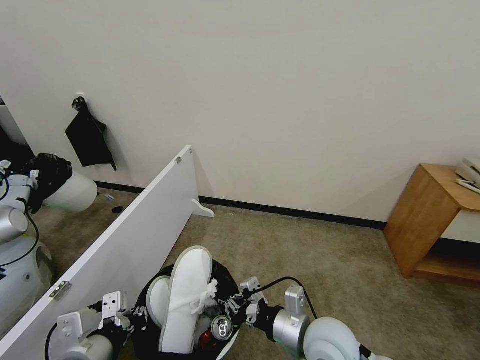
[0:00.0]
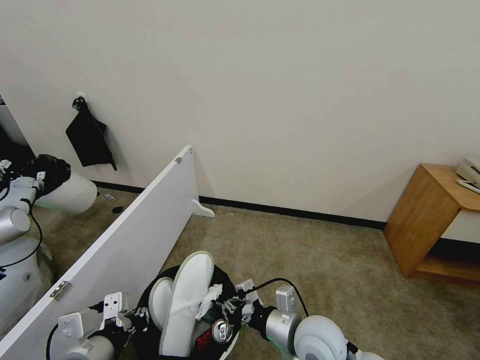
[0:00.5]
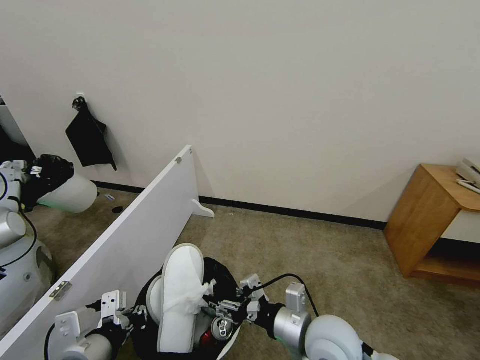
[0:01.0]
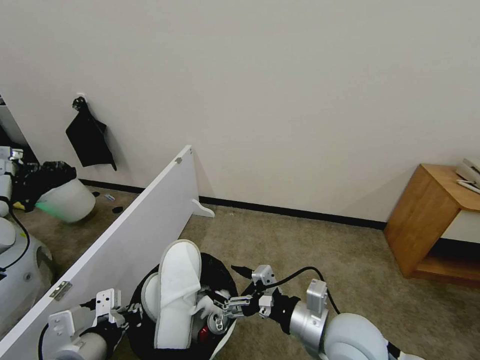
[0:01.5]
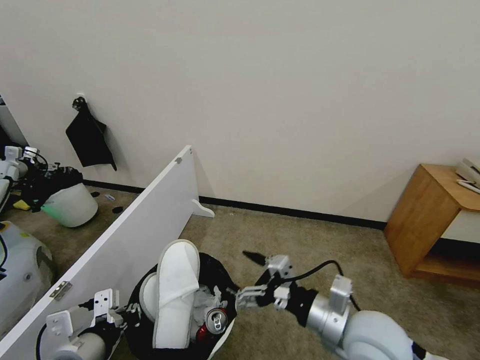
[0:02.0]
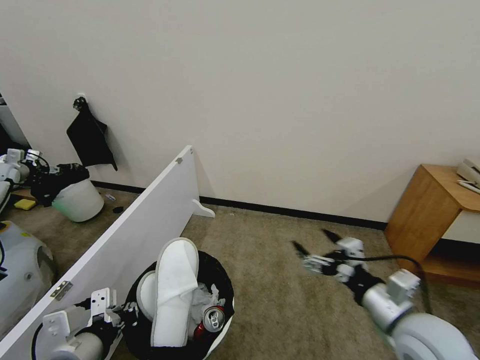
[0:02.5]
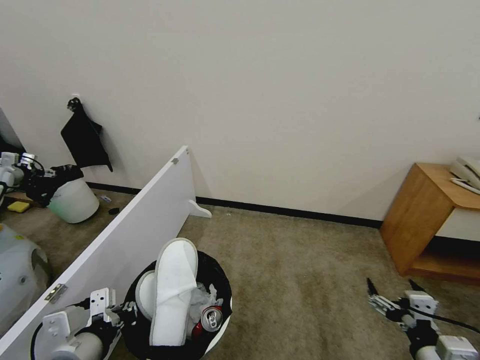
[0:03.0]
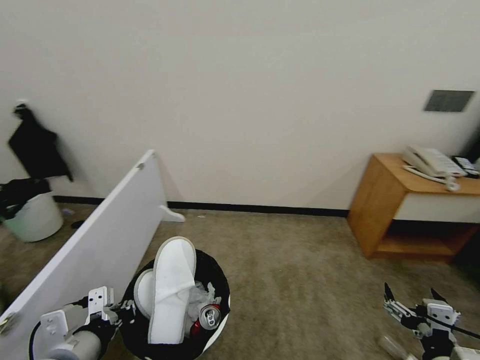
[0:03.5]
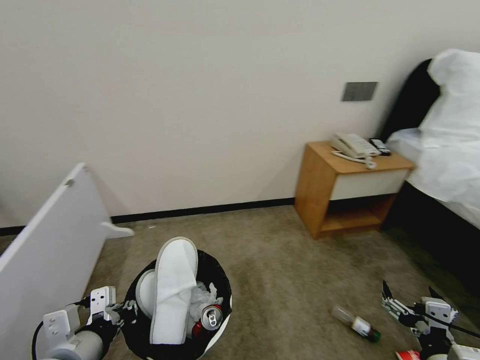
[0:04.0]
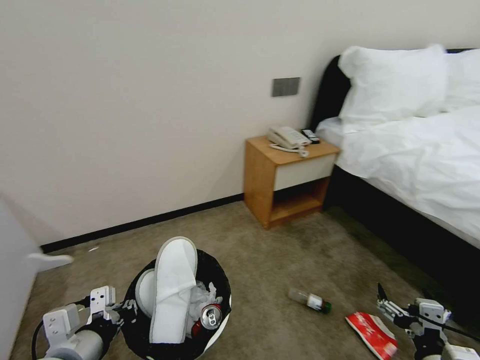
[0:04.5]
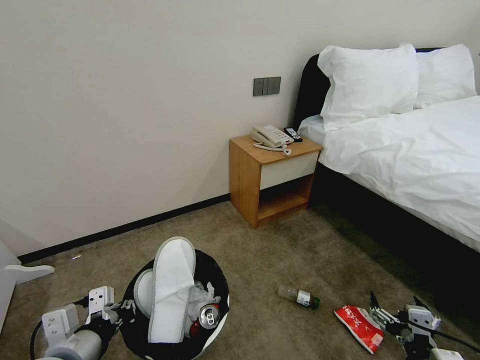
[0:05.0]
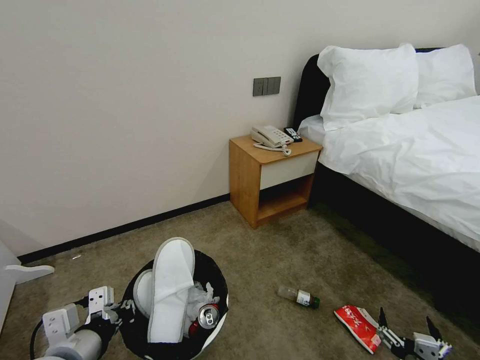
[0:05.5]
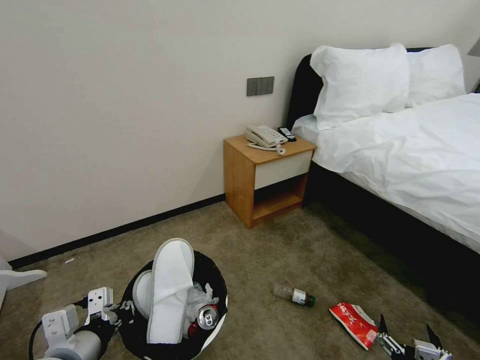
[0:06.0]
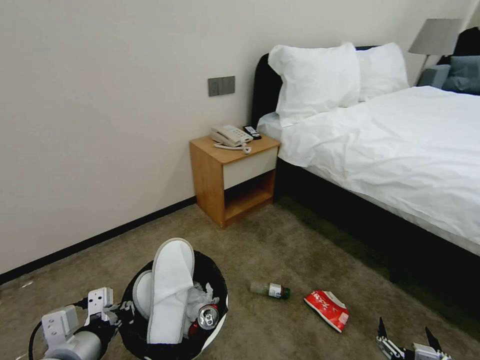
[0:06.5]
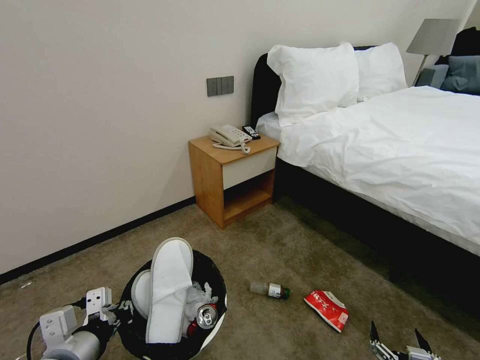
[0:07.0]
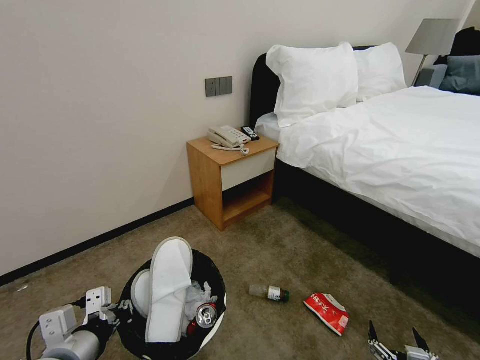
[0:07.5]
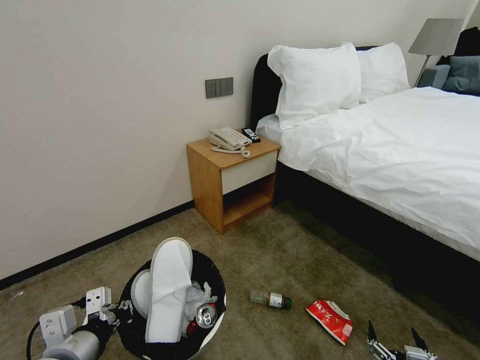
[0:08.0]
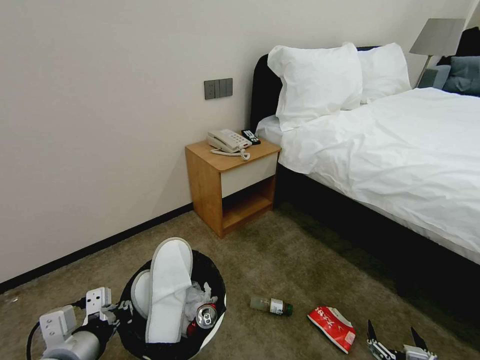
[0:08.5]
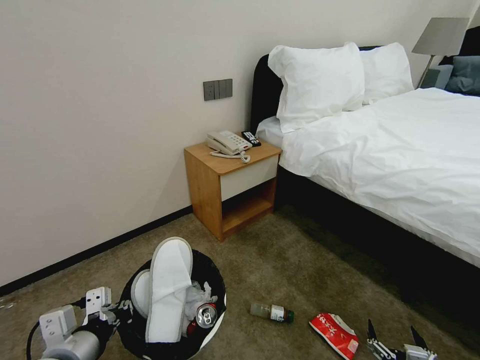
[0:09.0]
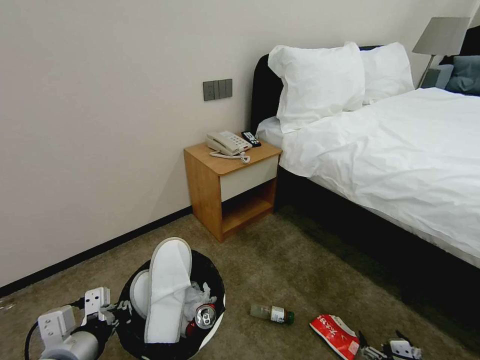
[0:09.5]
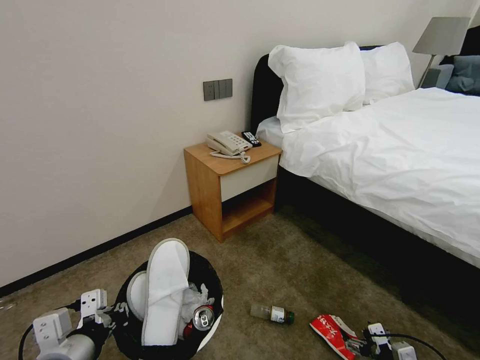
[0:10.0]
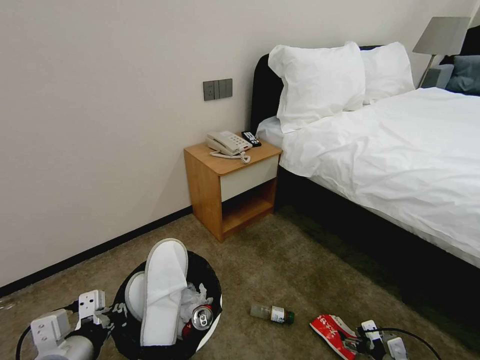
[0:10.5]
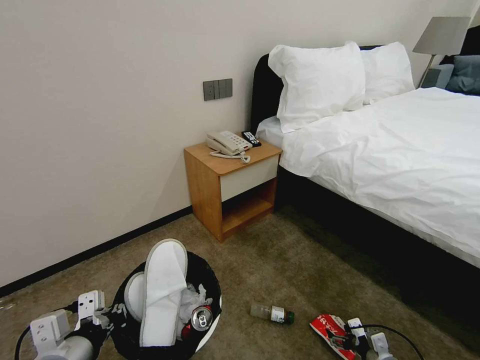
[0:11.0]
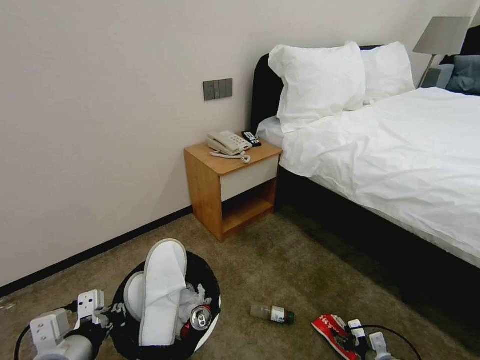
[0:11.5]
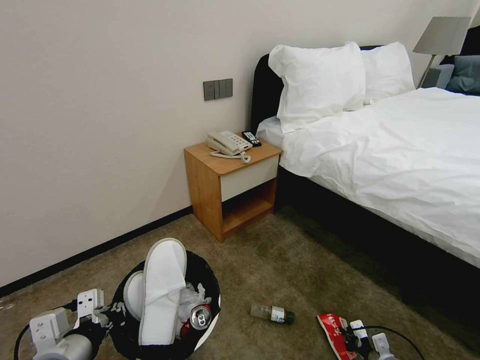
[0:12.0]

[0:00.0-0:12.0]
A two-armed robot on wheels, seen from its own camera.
Task of the whole recording: Pick up the trash bin, then pick up the garbage from the floor and place it into the trash bin.
0:00.0 to 0:02.0: The right gripper shifts approximately 5 cm upward, and opens.
0:02.0 to 0:04.0: The right gripper shifts some 20 cm to the right, backward and downward.
0:04.0 to 0:06.0: The right gripper heads downward, covering some 10 cm.
0:08.0 to 0:10.0: The right gripper shifts roughly 15 cm forward and to the right.
0:10.0 to 0:12.0: The right gripper is displaced downward and forward by some 10 cm, and closes its fingers.

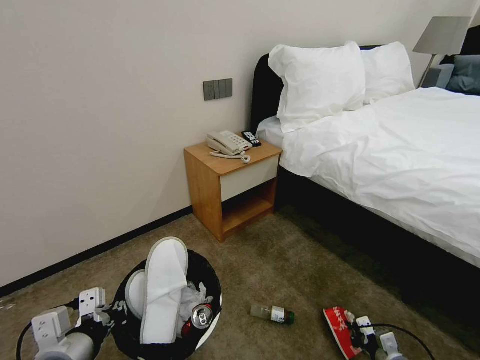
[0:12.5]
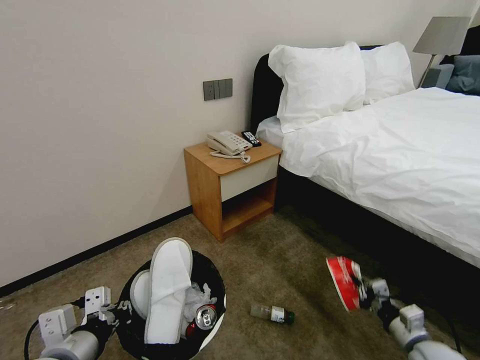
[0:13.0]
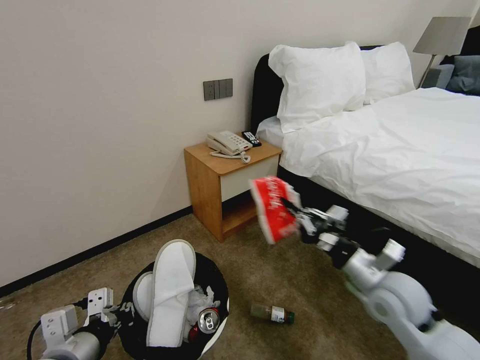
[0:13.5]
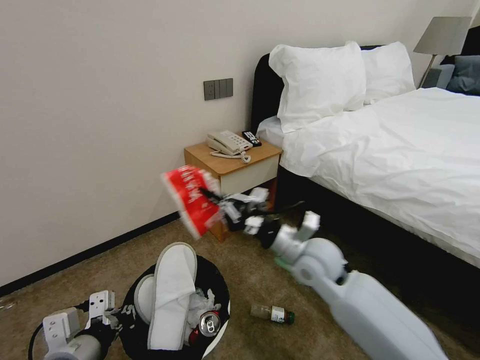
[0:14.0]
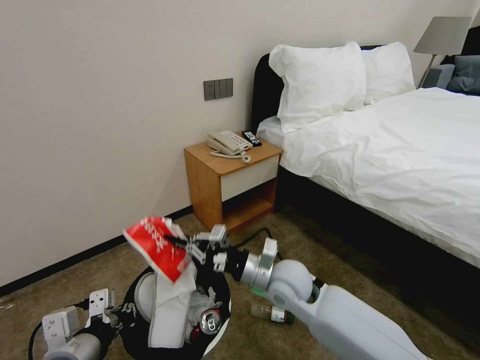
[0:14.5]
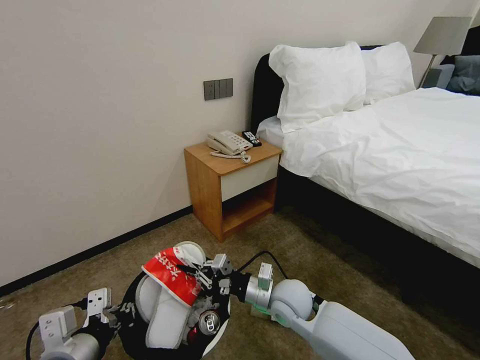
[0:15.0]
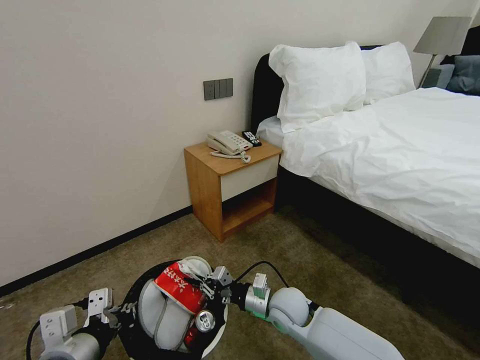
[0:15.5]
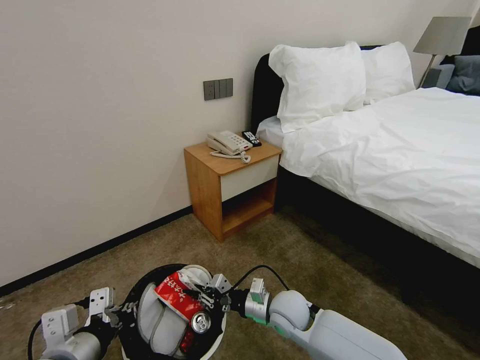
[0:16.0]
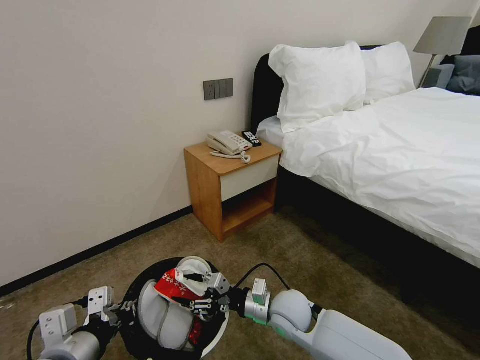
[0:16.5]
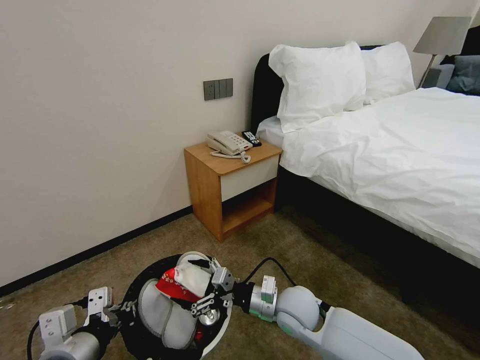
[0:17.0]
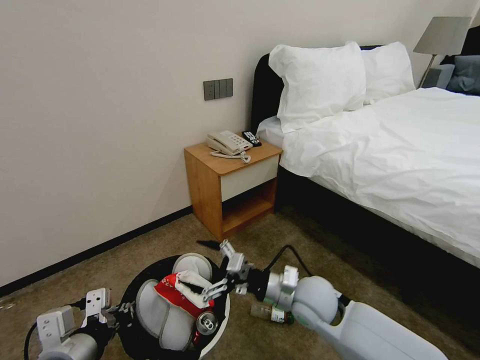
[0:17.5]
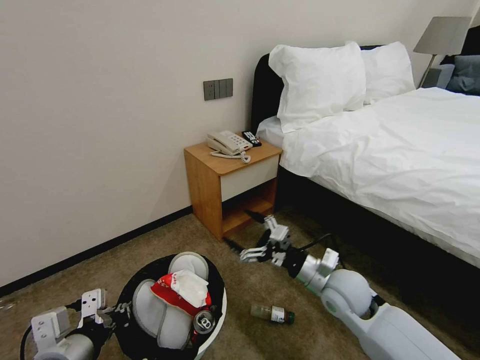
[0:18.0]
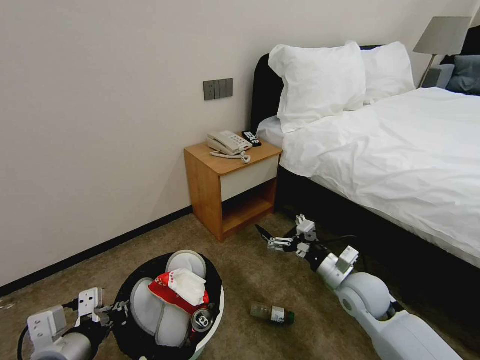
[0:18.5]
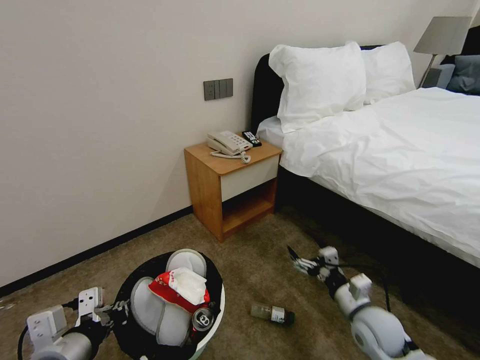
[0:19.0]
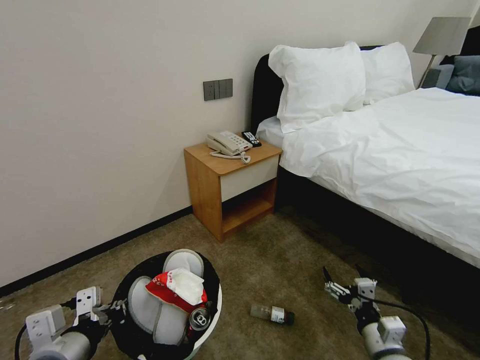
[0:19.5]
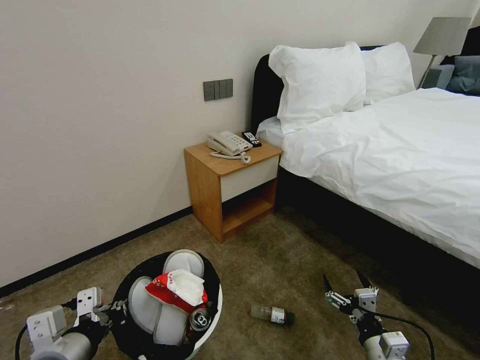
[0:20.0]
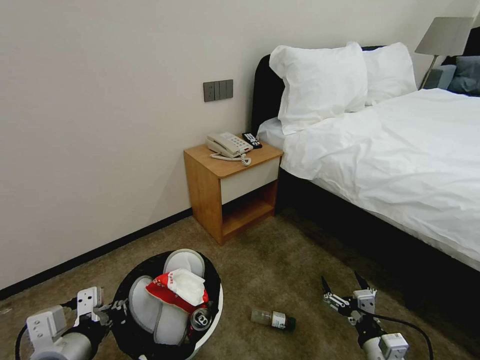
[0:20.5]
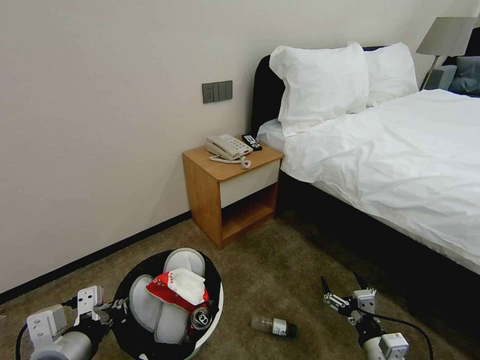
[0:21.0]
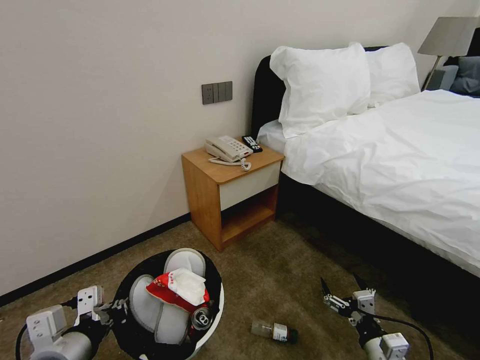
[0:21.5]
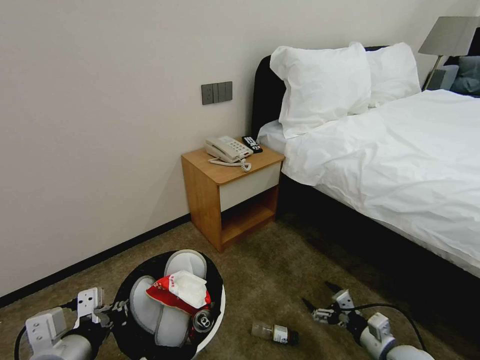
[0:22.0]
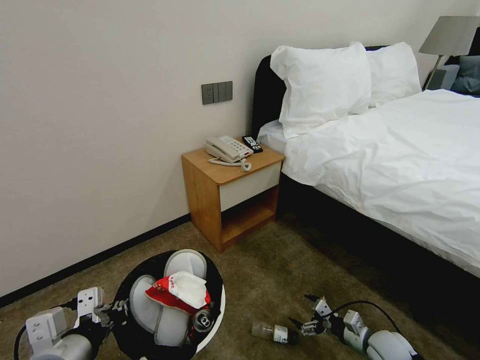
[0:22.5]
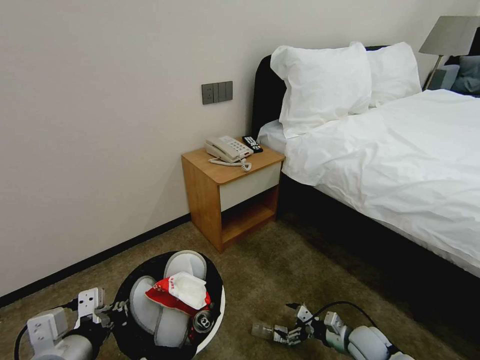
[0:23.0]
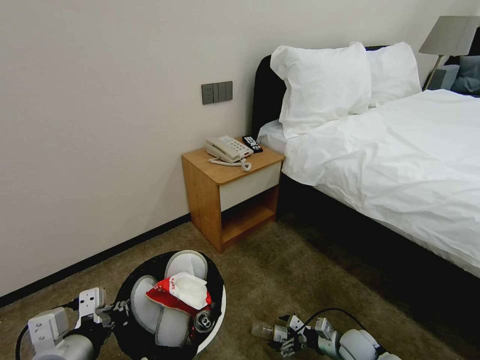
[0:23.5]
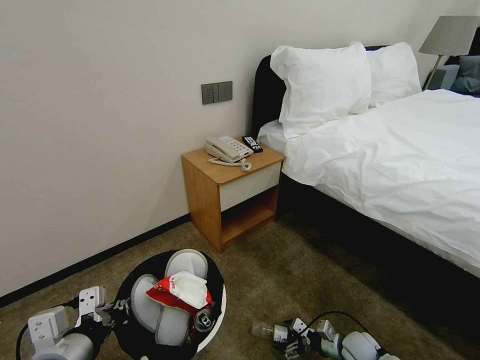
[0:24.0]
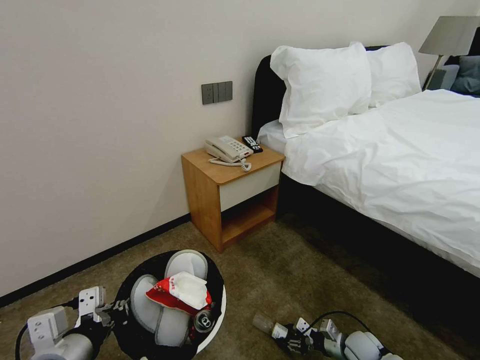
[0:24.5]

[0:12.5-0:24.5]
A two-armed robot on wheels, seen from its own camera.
Task of the whole recording: Pick up the trash bin, then pick up the garbage from the floor and place it into the trash bin.
0:12.5 to 0:14.5: The right gripper shifts roughly 40 cm to the left and upward.
0:14.5 to 0:16.5: The right gripper shifts approximately 10 cm downward, and opens.
0:16.5 to 0:18.5: The right gripper shifts approximately 15 cm to the right, and opens.
0:18.5 to 0:20.5: The right gripper goes approximately 20 cm backward and downward.
0:20.5 to 0:22.5: The right gripper shifts about 15 cm forward, downward and to the right.
0:22.5 to 0:24.5: The right gripper is displaced downward by some 5 cm, and closes.

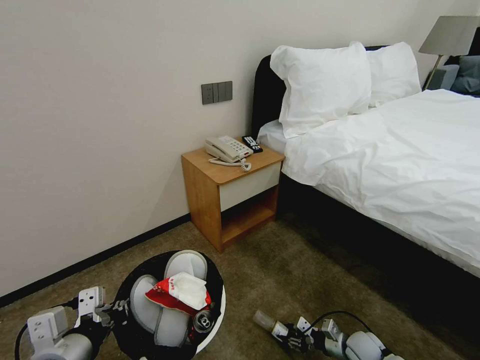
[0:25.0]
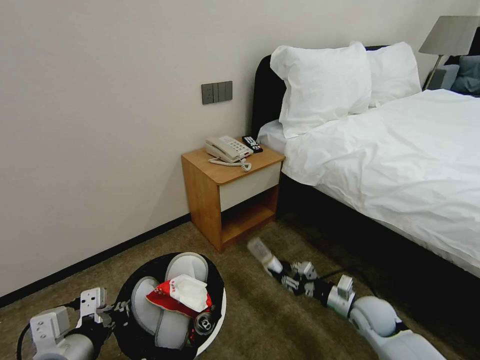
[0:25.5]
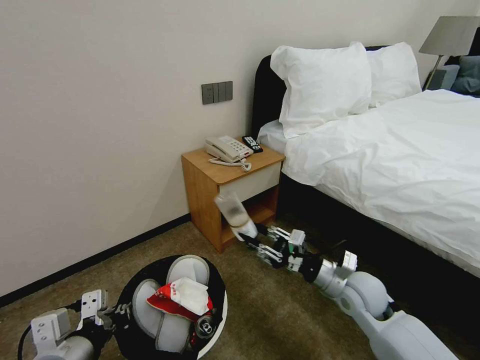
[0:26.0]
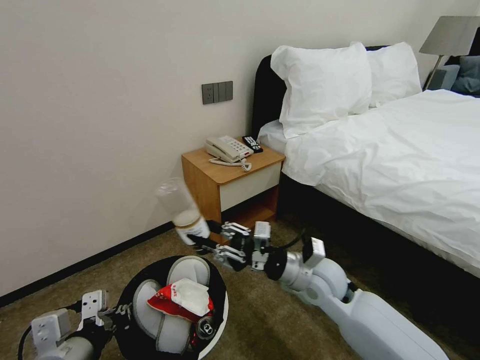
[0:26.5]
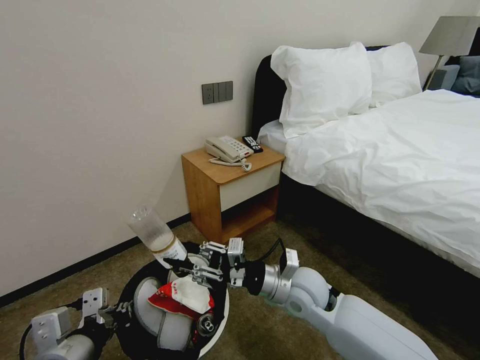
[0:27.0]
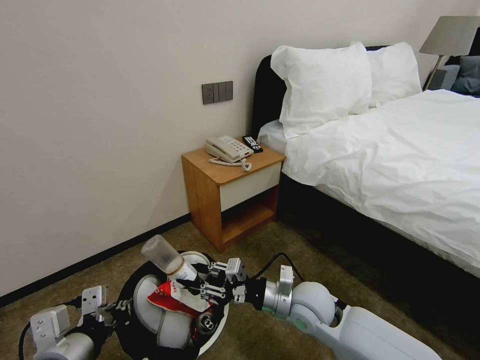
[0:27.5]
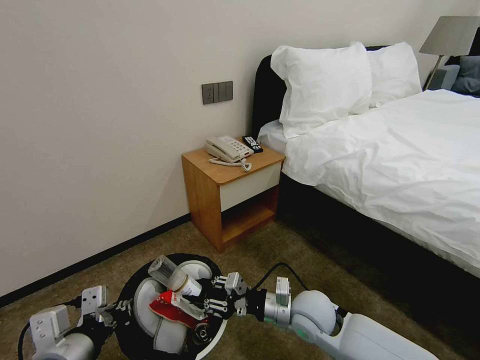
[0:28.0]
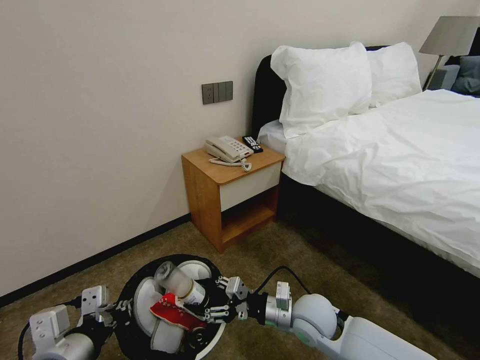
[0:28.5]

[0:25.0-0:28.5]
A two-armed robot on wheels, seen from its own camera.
Task of the whole recording: Pick up the trash bin, then pick up the garbage from the floor and place it into the trash bin.
0:25.0 to 0:27.0: The right gripper moves upward and to the left, approximately 35 cm.
0:27.0 to 0:28.5: The right gripper travels downward by approximately 5 cm.
